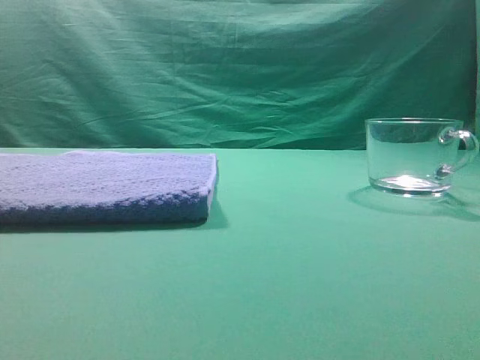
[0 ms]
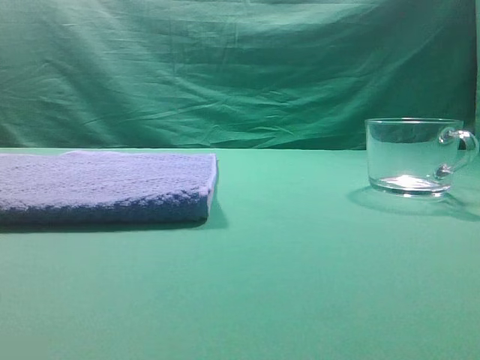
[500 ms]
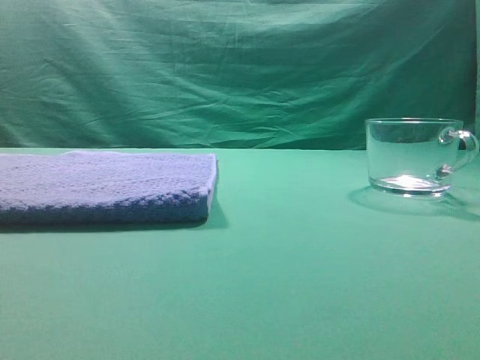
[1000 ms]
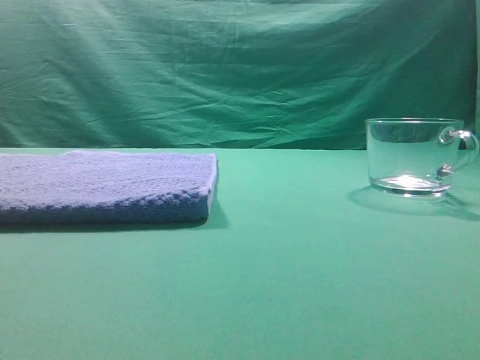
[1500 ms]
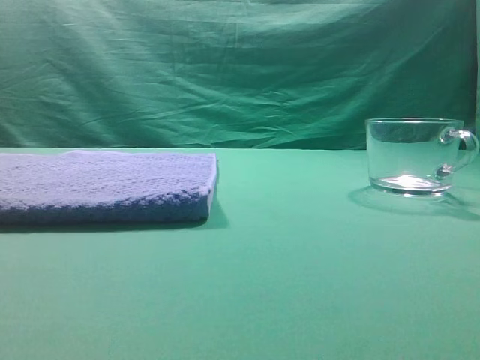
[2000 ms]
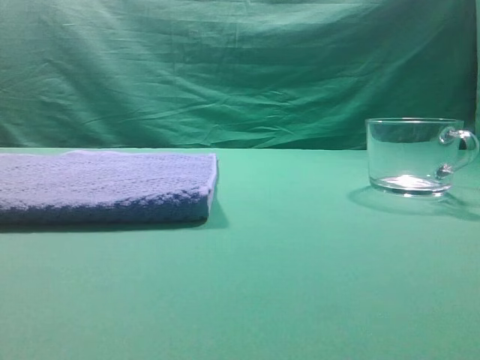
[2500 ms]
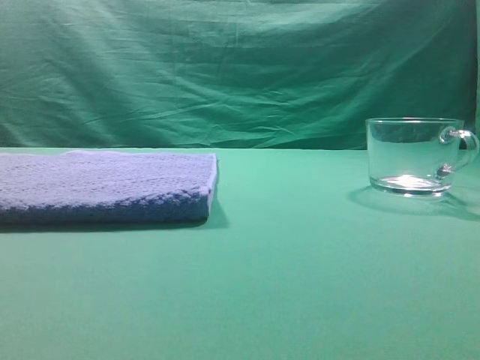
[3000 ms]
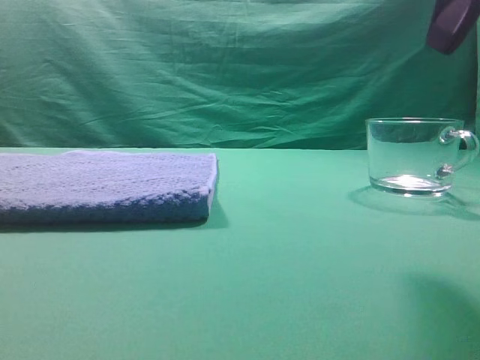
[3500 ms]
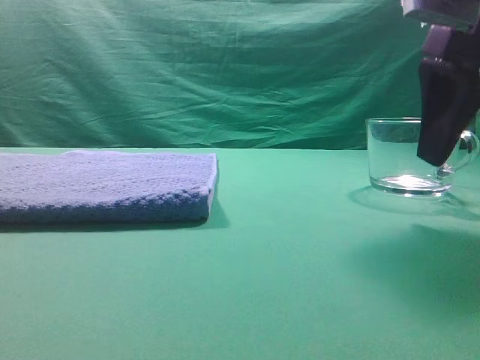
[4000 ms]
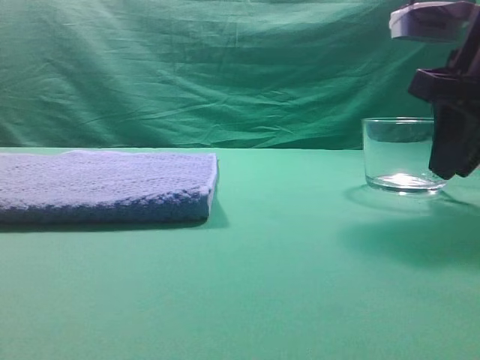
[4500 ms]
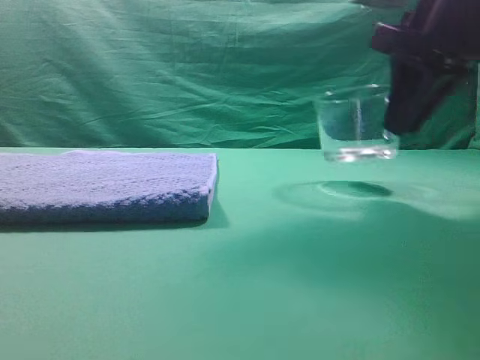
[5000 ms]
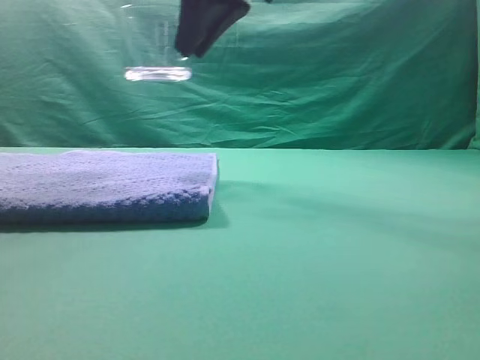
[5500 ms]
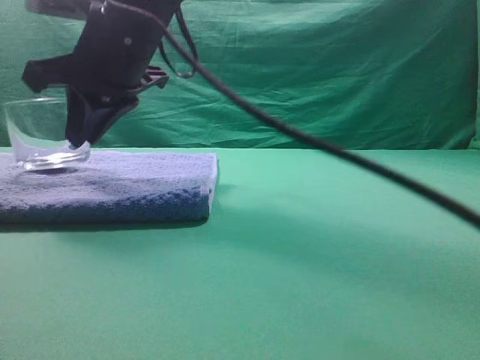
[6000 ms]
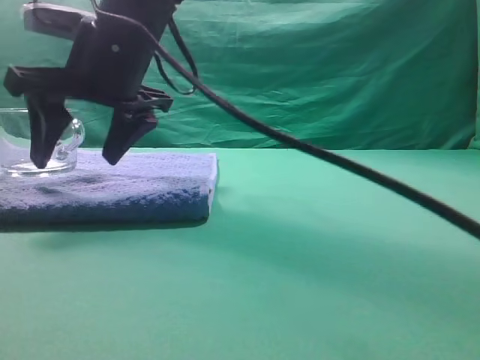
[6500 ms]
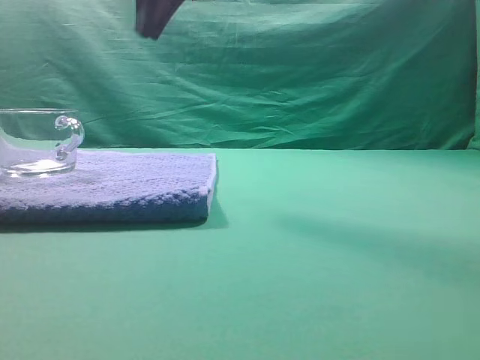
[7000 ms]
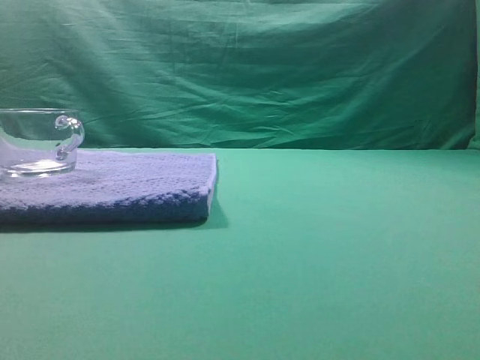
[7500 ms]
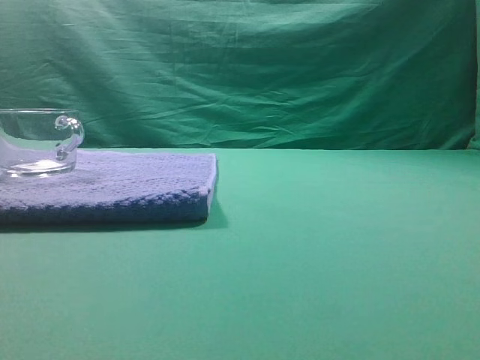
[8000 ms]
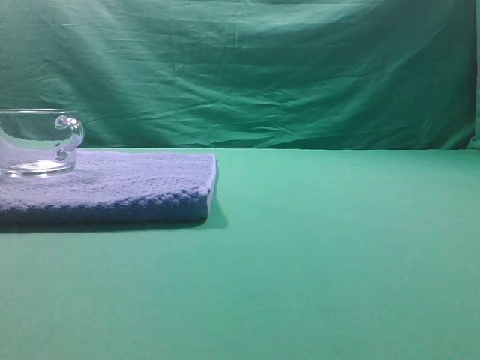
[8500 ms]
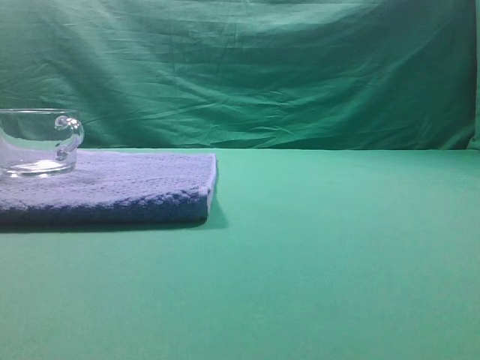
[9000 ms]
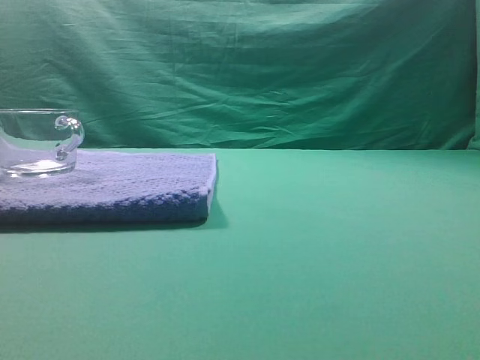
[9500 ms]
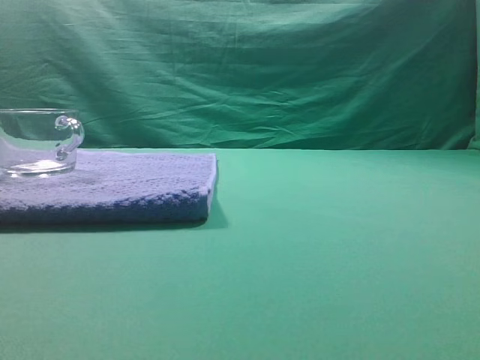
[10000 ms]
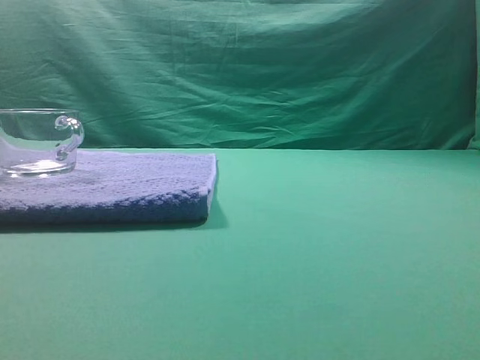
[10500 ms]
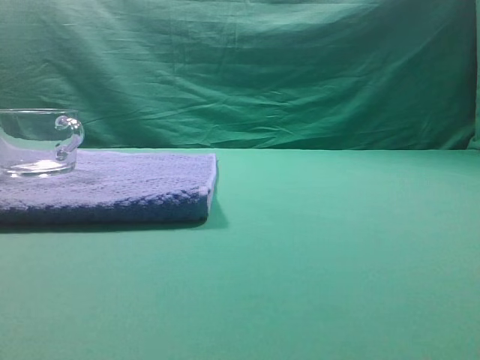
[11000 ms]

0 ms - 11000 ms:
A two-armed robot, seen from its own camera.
Task of the whole recording: grasp the transparent glass cup and place it within the blue towel.
Step, 0 ms - 4500 ms: Grasp the transparent glass cup.
Step, 5500 ms - 6500 ms: Place the glass cup on the blue zone.
